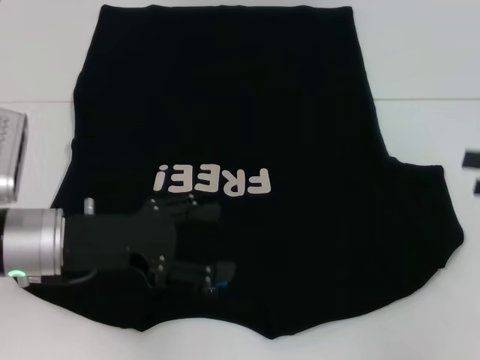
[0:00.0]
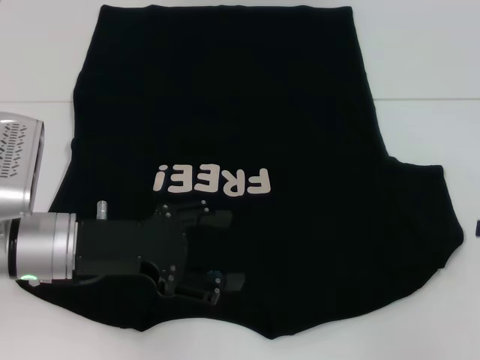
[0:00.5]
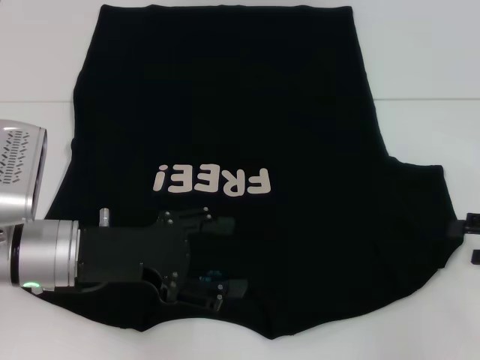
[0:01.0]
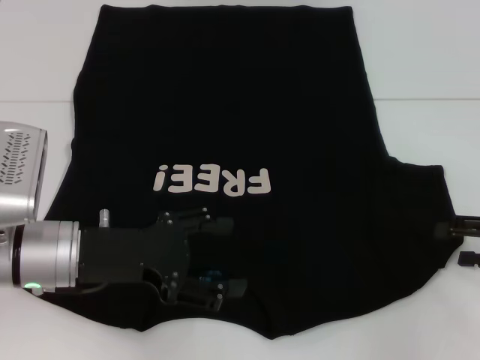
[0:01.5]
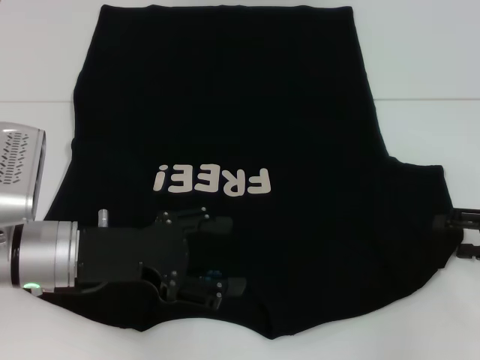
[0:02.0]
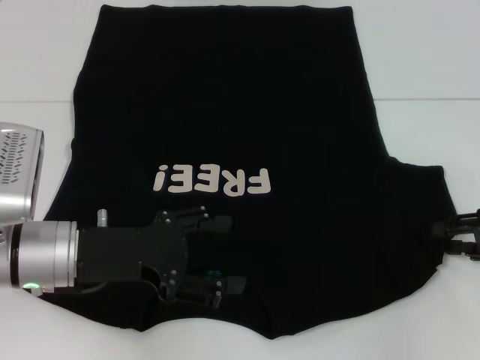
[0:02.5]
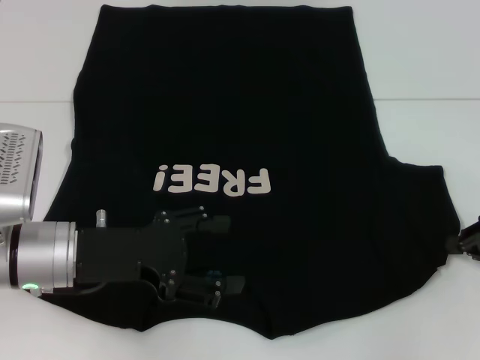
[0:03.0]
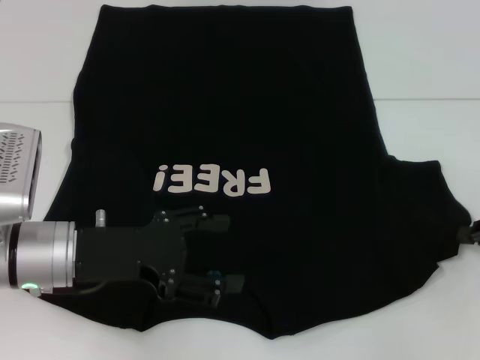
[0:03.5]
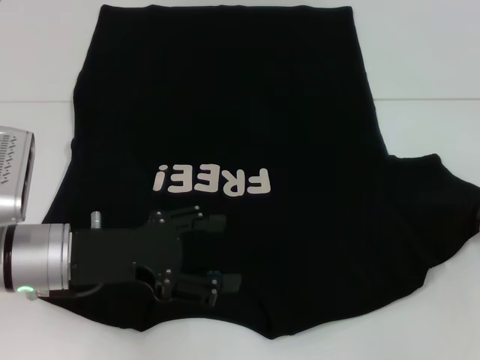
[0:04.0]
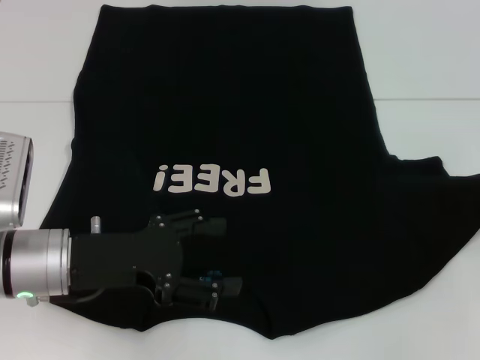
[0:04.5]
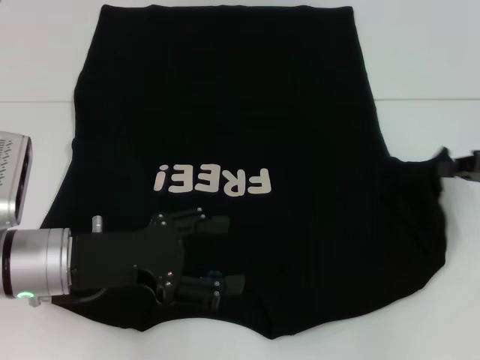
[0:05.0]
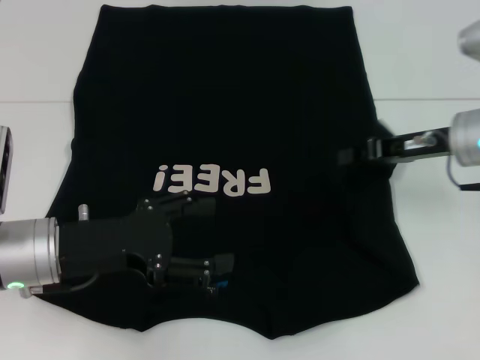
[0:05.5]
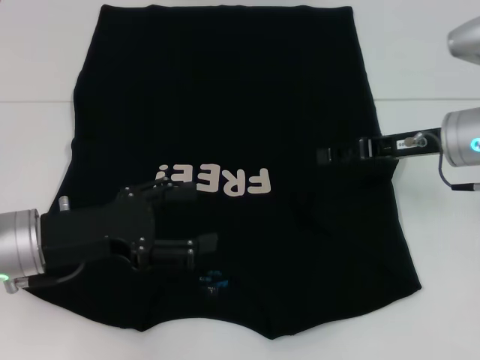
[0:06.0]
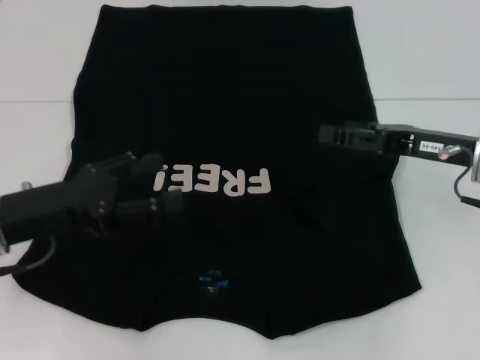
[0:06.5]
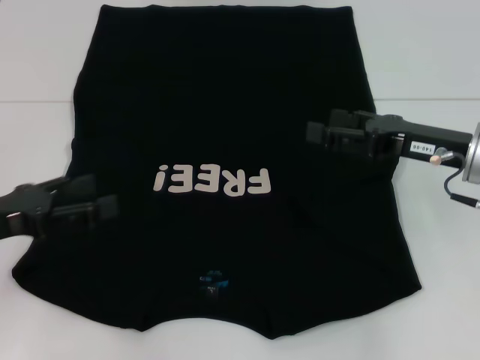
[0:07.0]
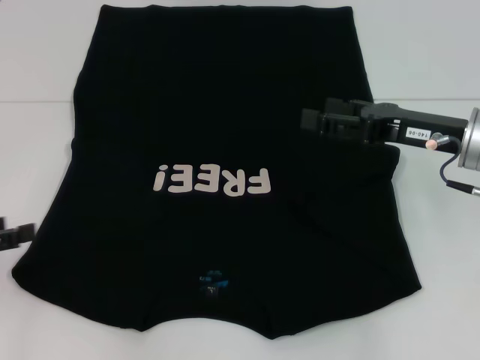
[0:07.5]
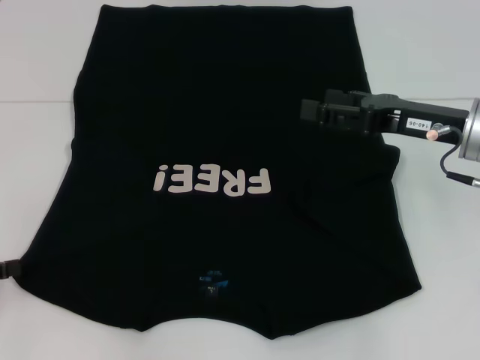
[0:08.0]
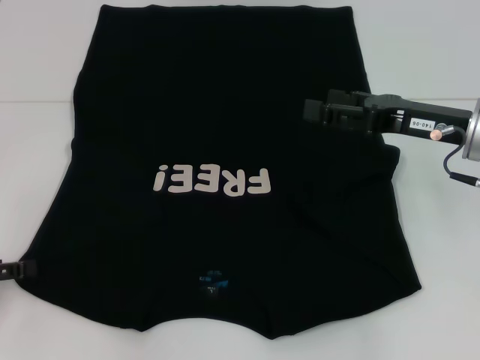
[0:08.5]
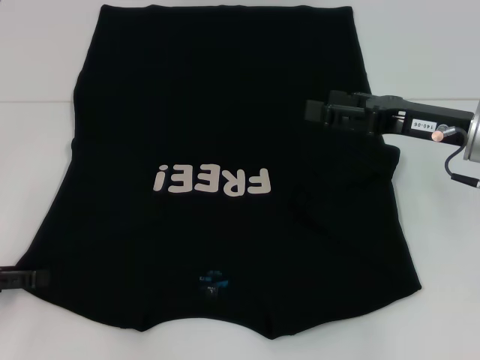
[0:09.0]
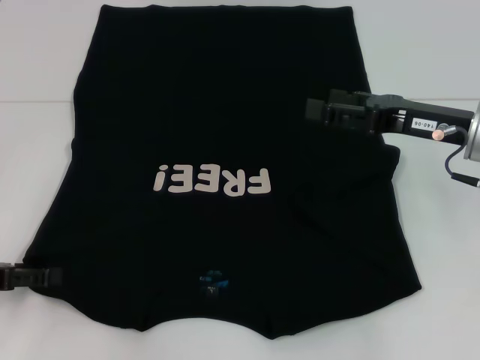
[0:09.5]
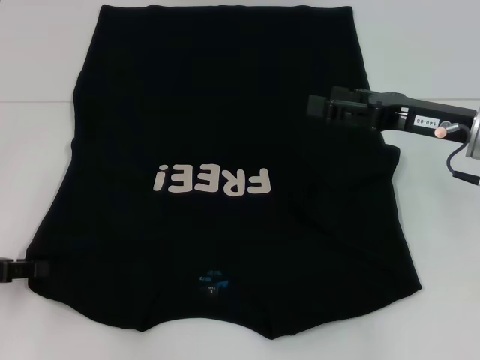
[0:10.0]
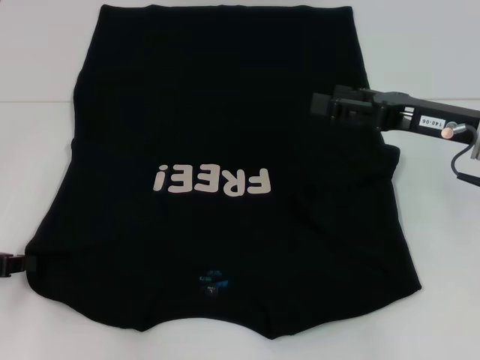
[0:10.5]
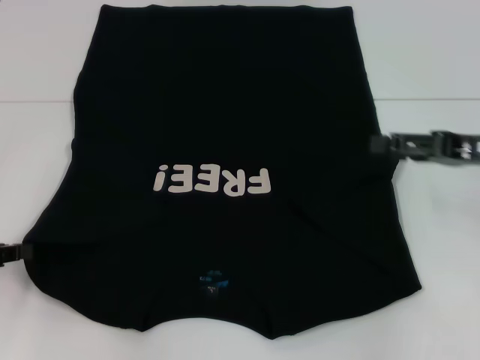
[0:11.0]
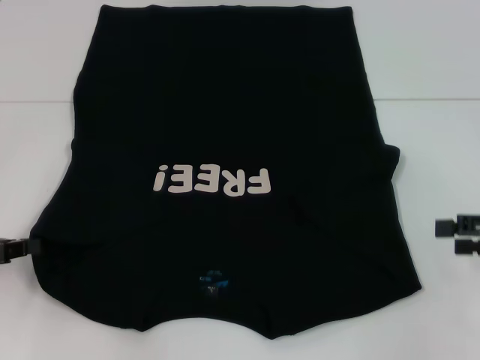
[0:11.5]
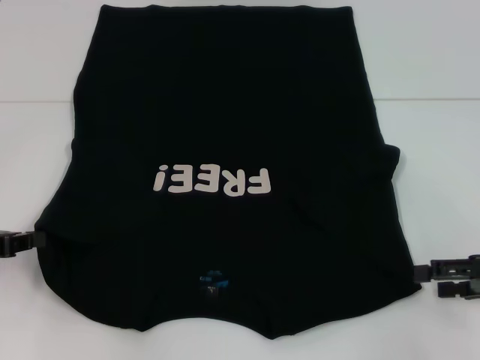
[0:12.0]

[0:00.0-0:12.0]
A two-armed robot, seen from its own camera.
Step, 0:00.0 to 0:06.0: Fold the bottom right sleeve with your right hand.
Step, 0:06.5 to 0:11.0: Grab the bottom left corner with your left hand.
0:00.0 to 0:02.0: The right gripper goes some 5 cm downward.
0:02.0 to 0:04.0: The right gripper closes its fingers.
0:04.0 to 0:06.0: The right gripper goes roughly 20 cm to the left and forward, and opens.
0:06.0 to 0:08.0: The right gripper opens, while the left gripper moves to the left, approximately 15 cm.
0:10.0 to 0:12.0: The left gripper closes up. The right gripper is displaced to the right, backward and downward by about 15 cm.

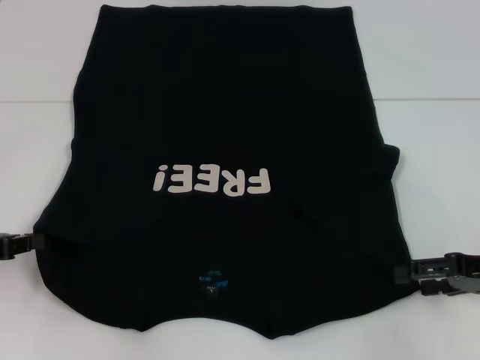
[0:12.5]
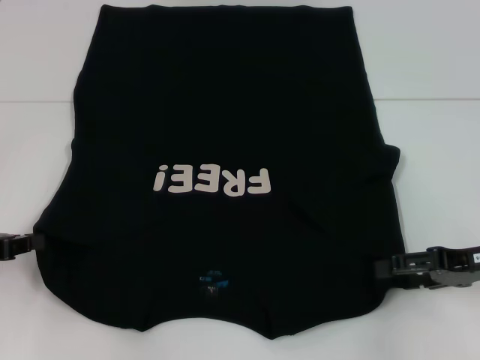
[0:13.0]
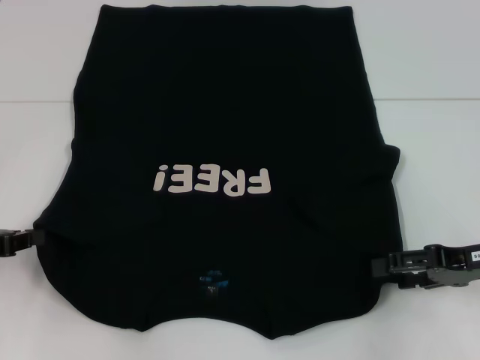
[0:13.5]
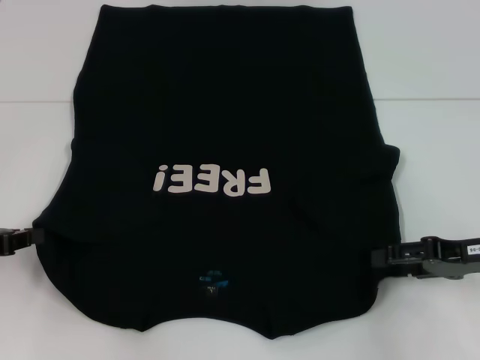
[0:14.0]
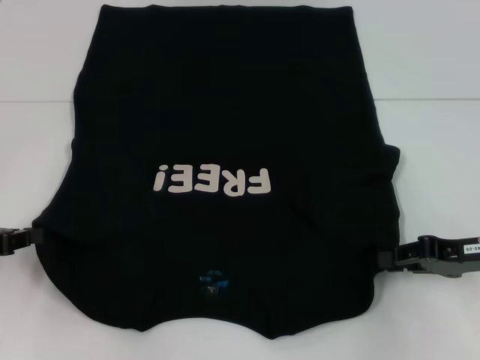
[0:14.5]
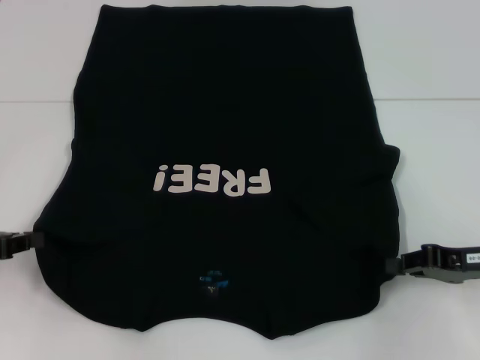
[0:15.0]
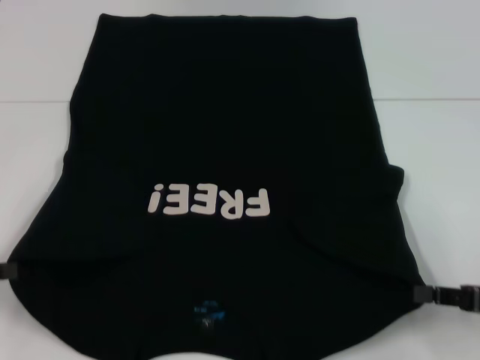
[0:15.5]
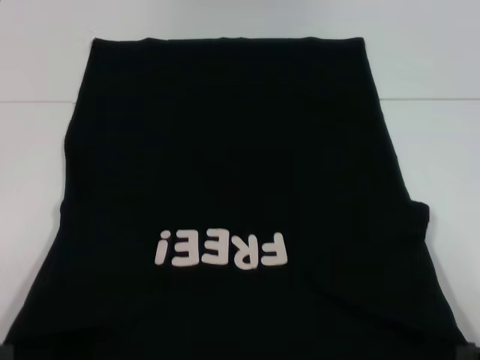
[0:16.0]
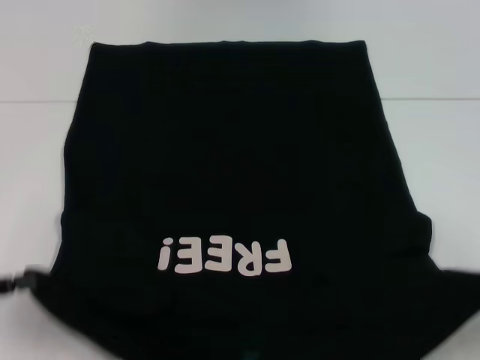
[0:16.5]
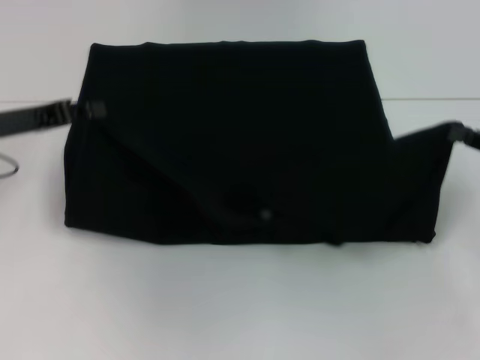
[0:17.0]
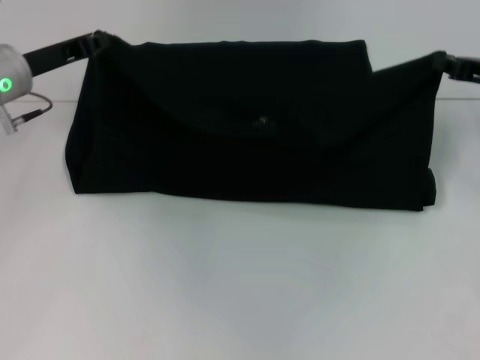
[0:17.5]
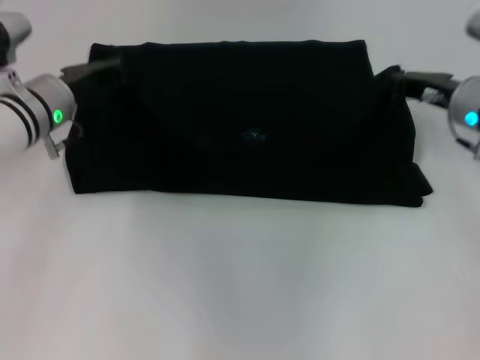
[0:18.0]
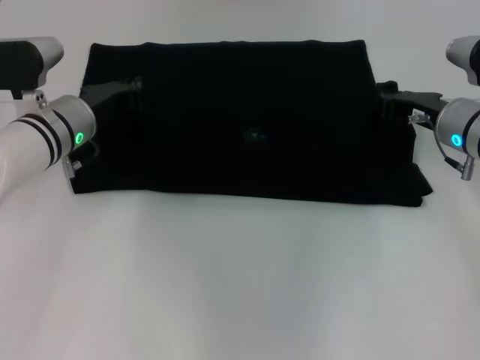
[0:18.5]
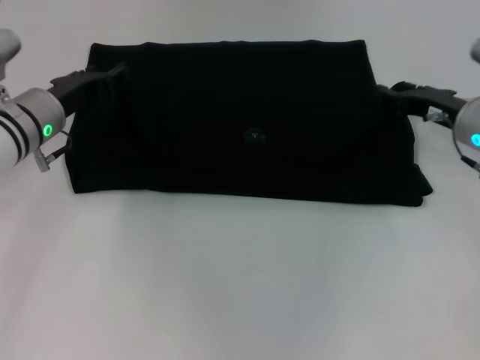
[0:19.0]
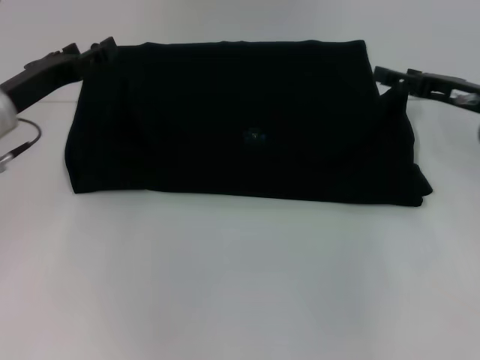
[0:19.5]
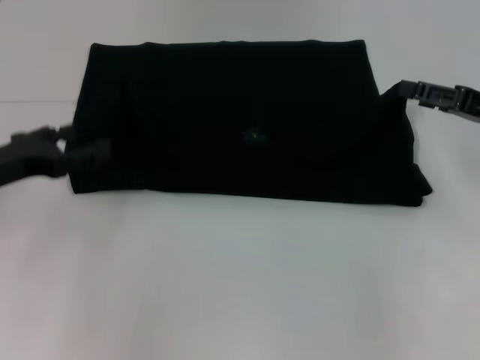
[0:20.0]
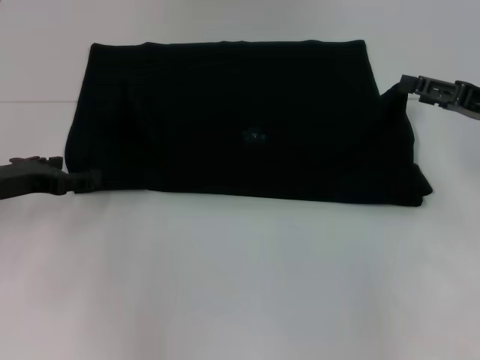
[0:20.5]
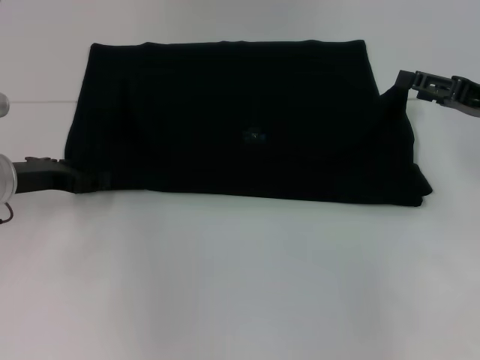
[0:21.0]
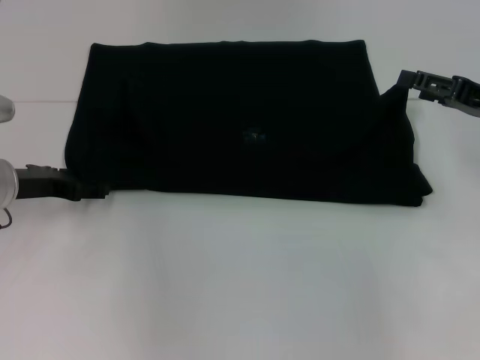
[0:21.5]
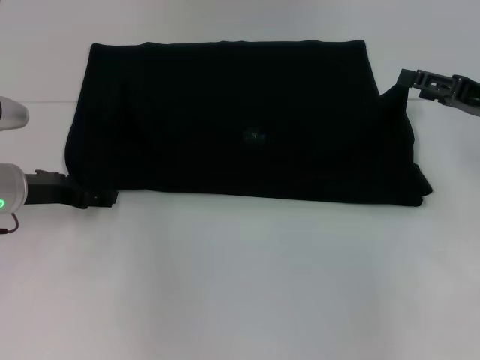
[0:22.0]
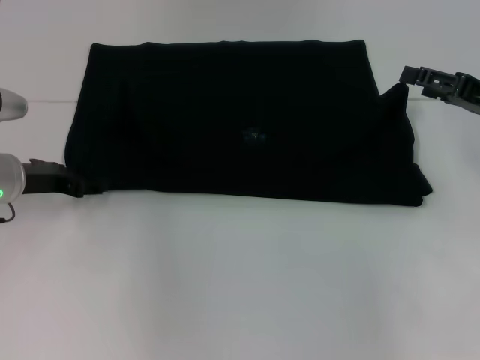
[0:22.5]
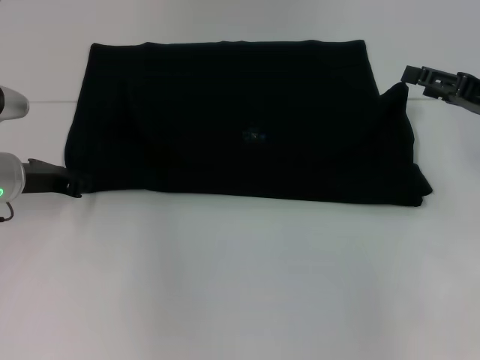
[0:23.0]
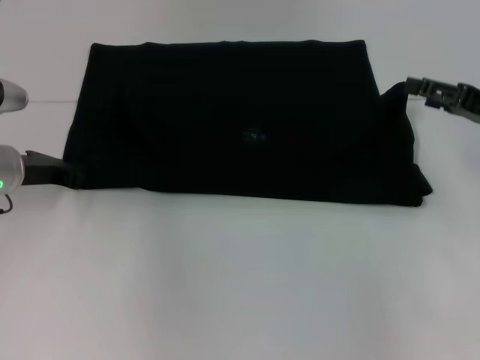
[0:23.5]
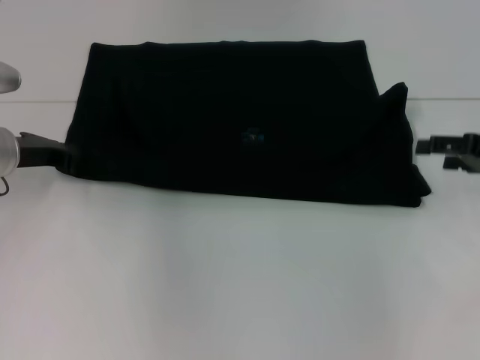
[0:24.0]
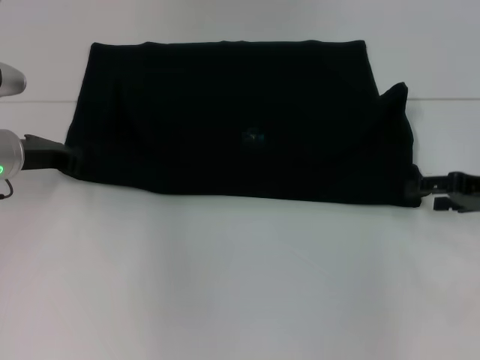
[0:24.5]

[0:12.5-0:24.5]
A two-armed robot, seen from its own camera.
Step, 0:12.5 to 0:15.0: Grab the bottom right corner with your right hand.
Step, 0:15.5 to 0:19.0: Fold the clothes with your left hand.
Step, 0:15.5 to 0:19.0: Fold the clothes with your right hand.
0:12.5 to 0:14.5: The right gripper closes its fingers.
0:14.5 to 0:16.5: The left gripper shifts roughly 5 cm backward. Meanwhile the right gripper heads backward and to the right, covering about 15 cm, and closes.
0:16.5 to 0:18.5: The left gripper goes approximately 25 cm forward and to the right, while the right gripper heads forward and to the left, covering some 30 cm.
0:18.5 to 0:20.5: The right gripper goes about 10 cm to the right and upward, and opens its fingers, while the left gripper travels to the left and backward by some 15 cm, and opens.
0:20.5 to 0:22.5: The grippers stay close to where they were, moving slightly.
0:22.5 to 0:24.5: The left gripper closes its fingers.

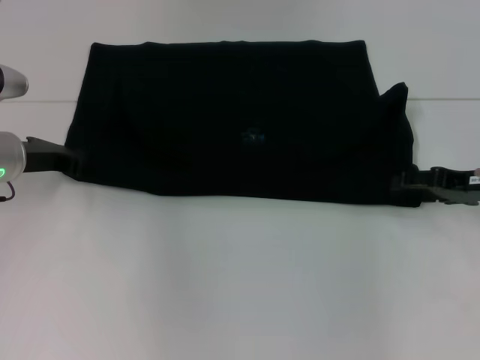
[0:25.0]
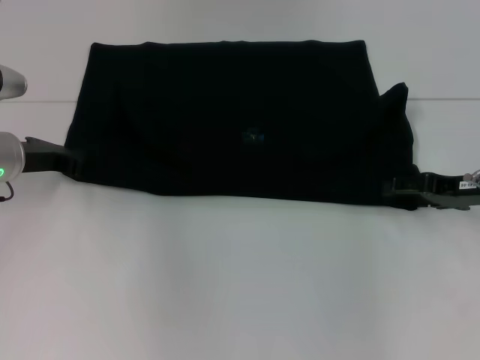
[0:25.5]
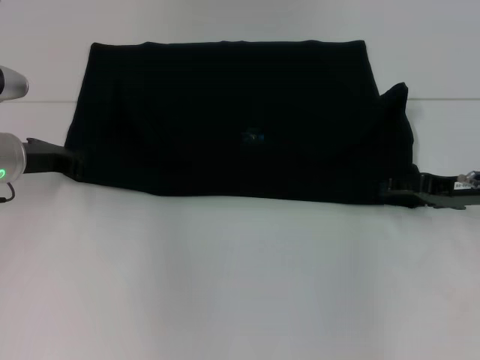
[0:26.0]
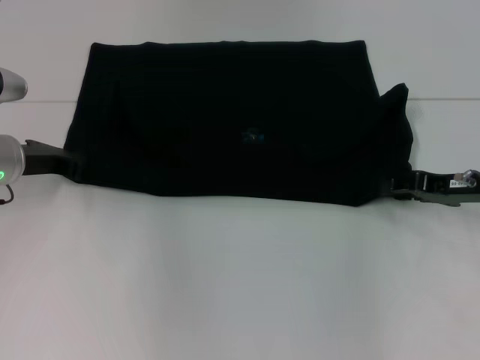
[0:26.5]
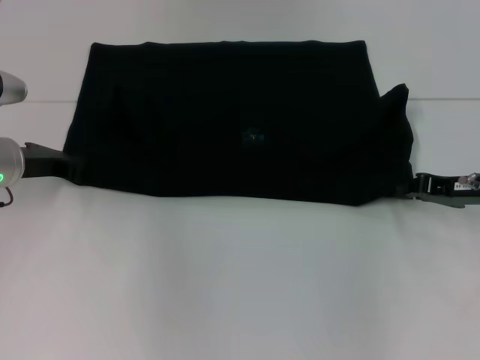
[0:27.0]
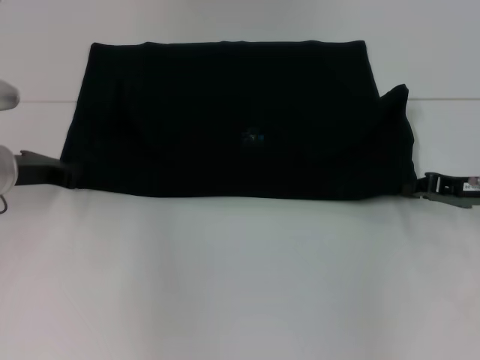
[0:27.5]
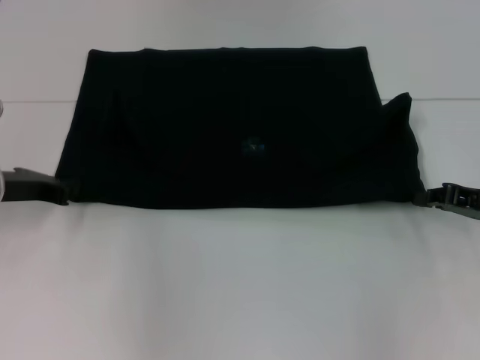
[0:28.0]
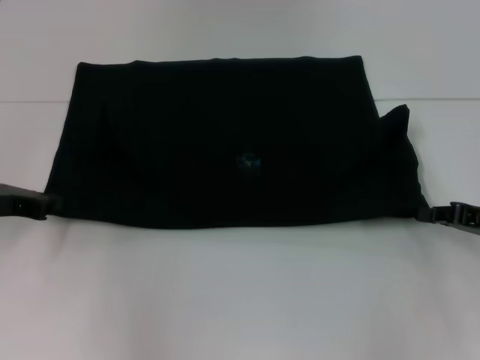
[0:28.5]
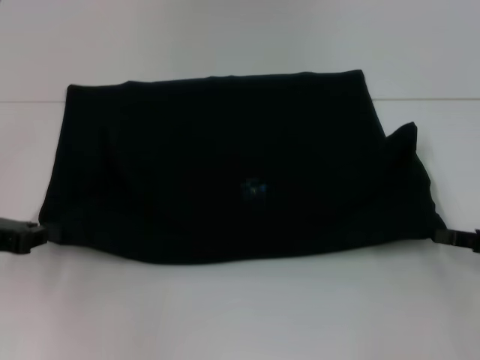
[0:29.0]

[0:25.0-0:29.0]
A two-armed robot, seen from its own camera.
0:25.0 to 0:27.0: The right gripper closes.
0:27.0 to 0:29.0: The left gripper heads backward and to the left, covering roughly 10 cm, while the right gripper is displaced backward and to the right by about 10 cm.
